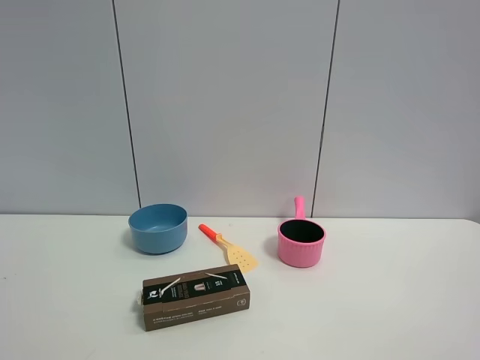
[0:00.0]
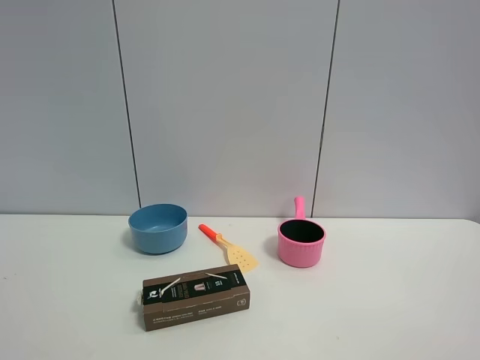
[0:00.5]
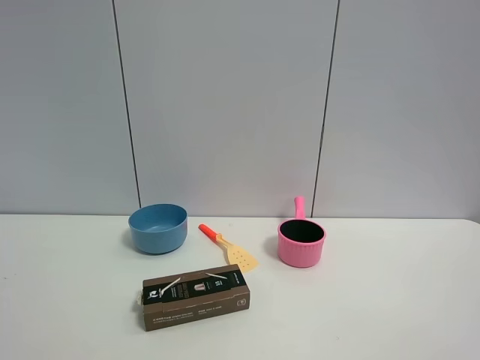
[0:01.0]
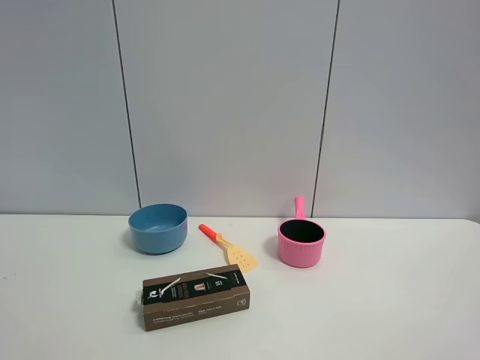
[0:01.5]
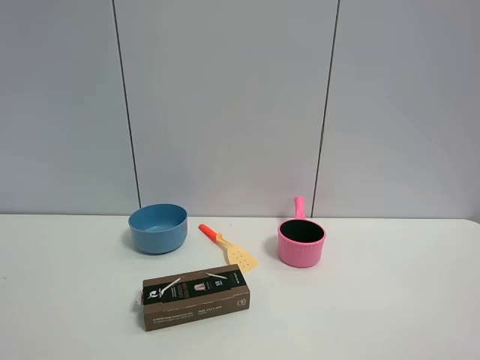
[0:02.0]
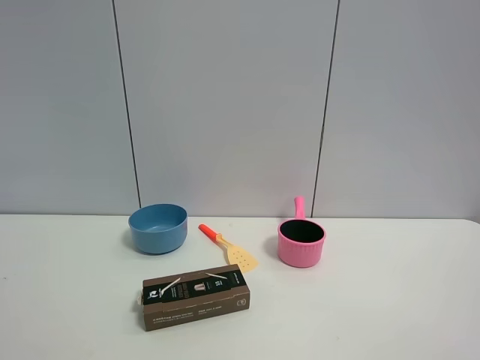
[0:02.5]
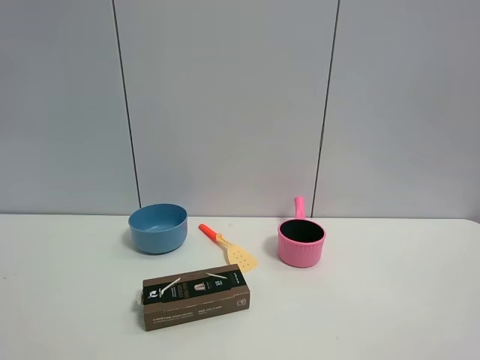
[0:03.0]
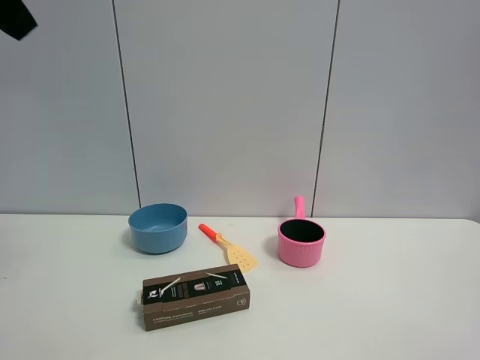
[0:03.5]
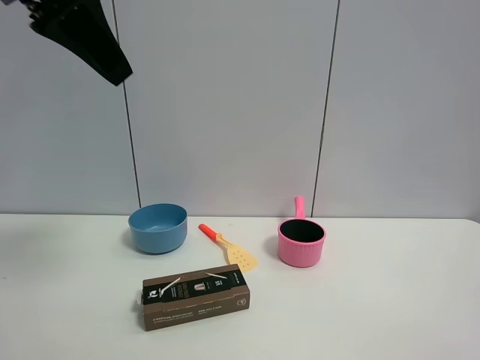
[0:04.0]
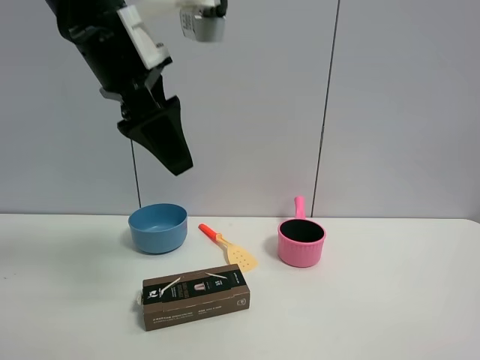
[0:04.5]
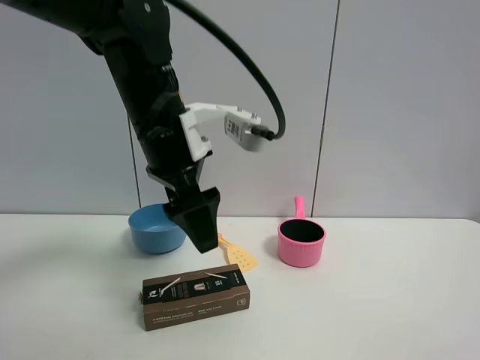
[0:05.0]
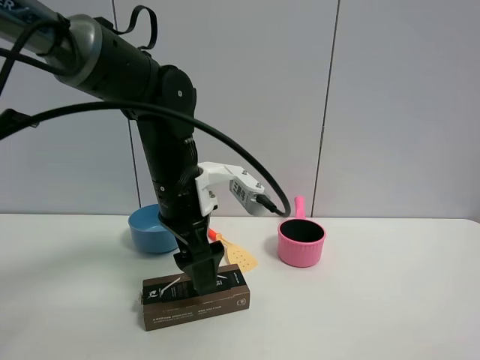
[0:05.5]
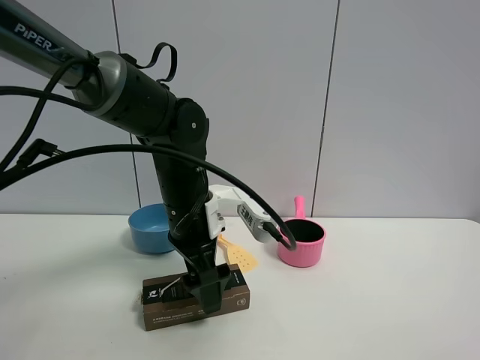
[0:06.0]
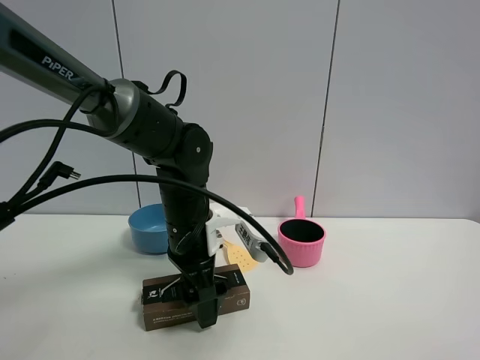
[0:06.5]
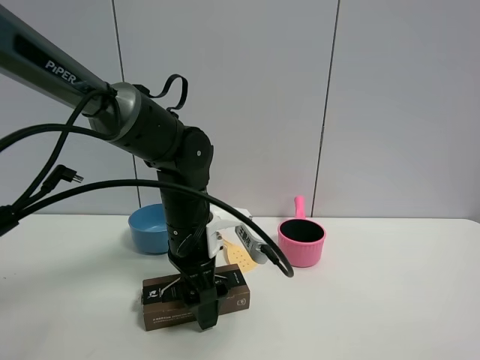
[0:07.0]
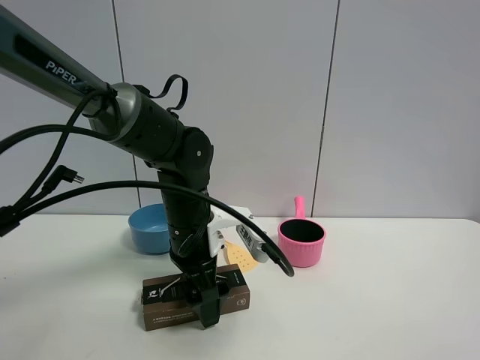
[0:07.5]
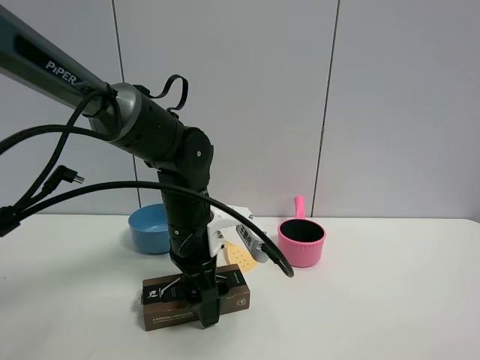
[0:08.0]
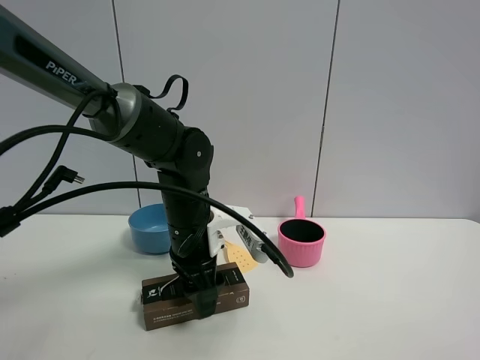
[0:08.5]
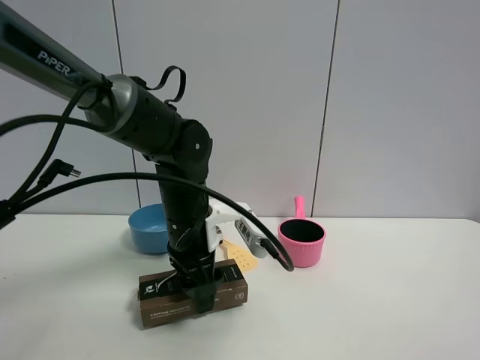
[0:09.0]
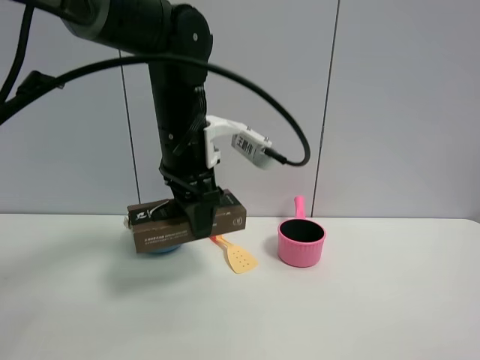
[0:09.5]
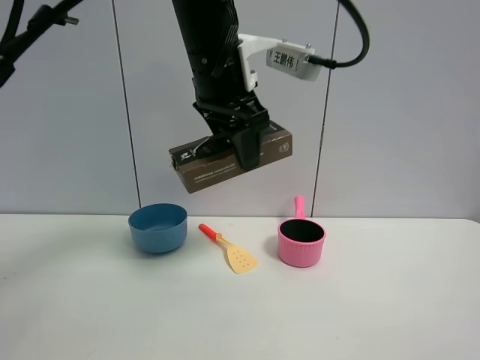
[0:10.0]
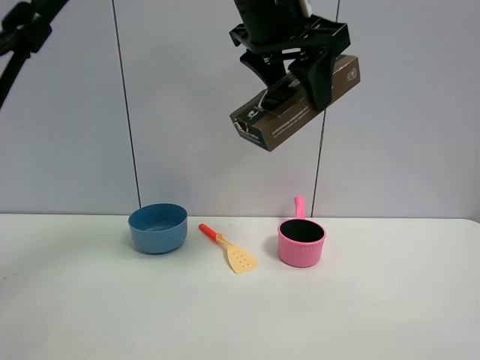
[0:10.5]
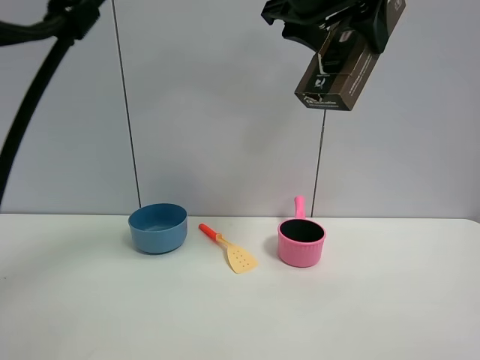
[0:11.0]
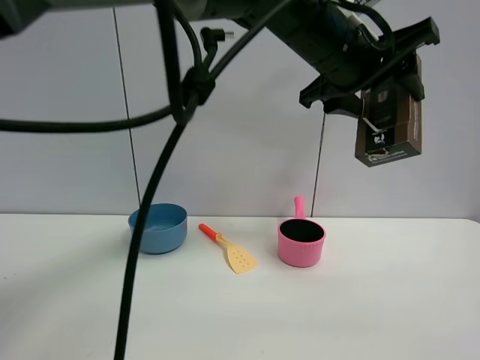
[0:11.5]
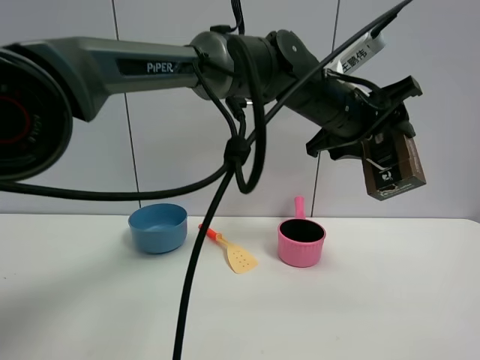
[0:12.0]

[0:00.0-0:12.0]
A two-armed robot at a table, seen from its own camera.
Task of the whole recording: the gripper move the object.
Step, 0:00.0 to 0:08.0: Grasp the brown box with the left gripper.
0:02.0 to 0:04.0: The left gripper moves forward and to the right, some 30 cm, and opens up.
0:04.0 to 0:06.0: The left gripper goes approximately 30 cm downward and to the right.
0:06.0 to 0:08.0: The grippers stay close to where they were, moving slightly.
0:08.0 to 0:10.0: The left gripper heads upward, covering approximately 20 cm, and closes its fingers.
0:10.0 to 0:12.0: The left gripper travels to the right and downward by about 15 cm.

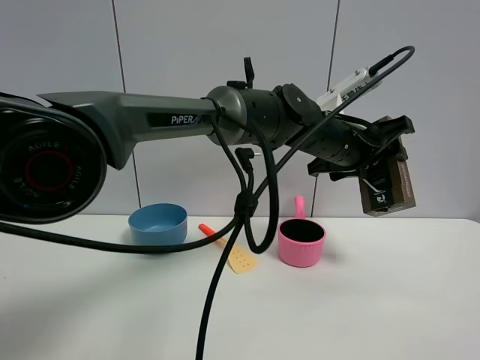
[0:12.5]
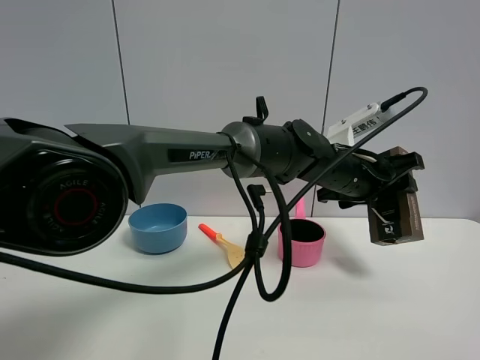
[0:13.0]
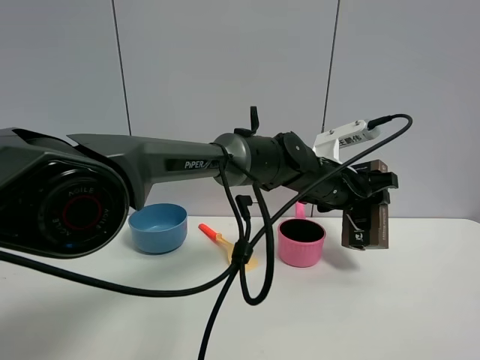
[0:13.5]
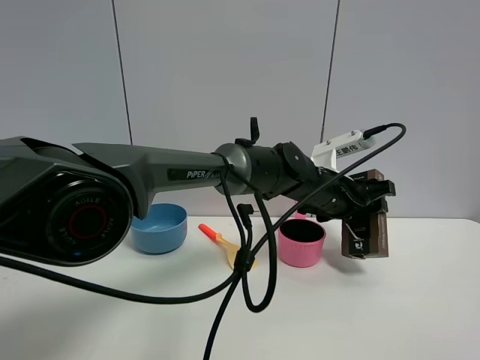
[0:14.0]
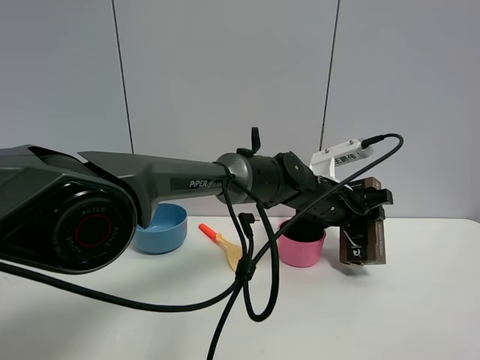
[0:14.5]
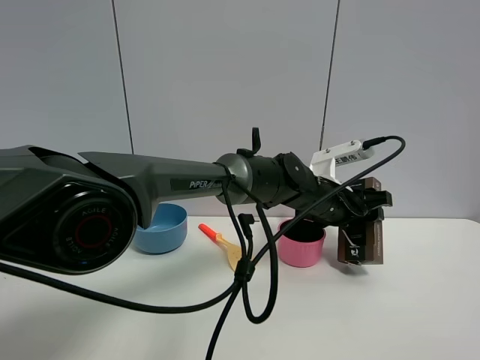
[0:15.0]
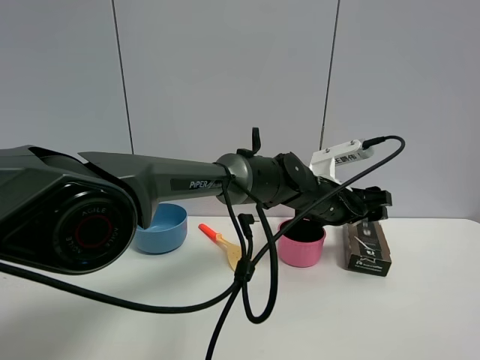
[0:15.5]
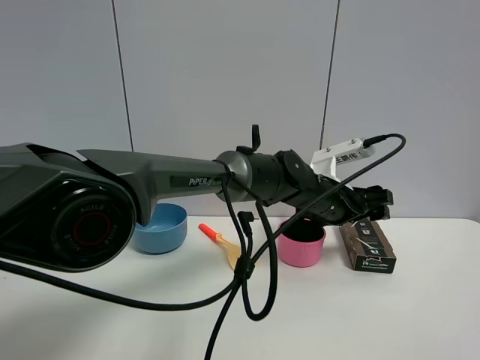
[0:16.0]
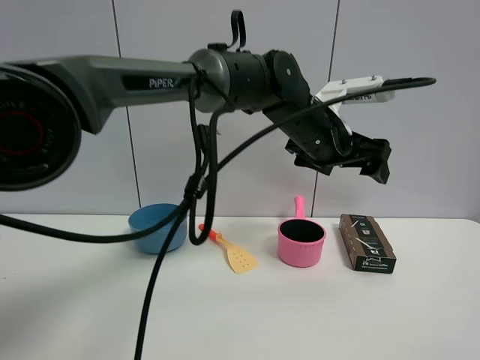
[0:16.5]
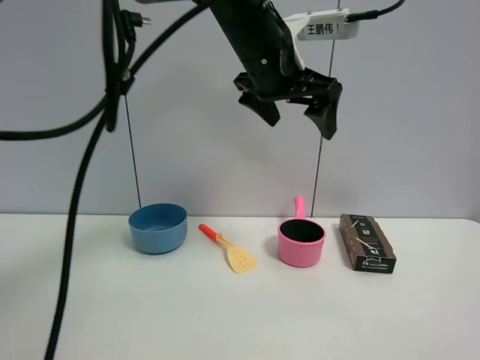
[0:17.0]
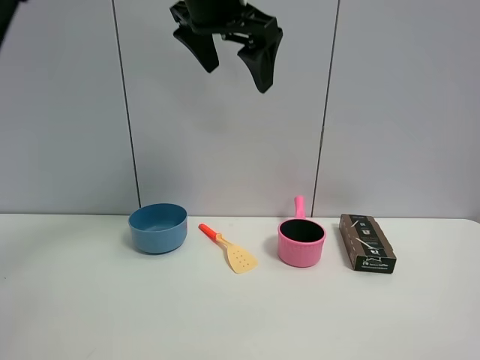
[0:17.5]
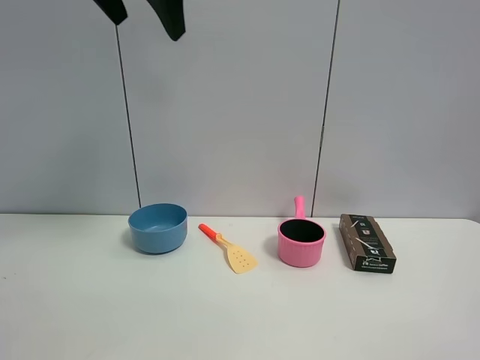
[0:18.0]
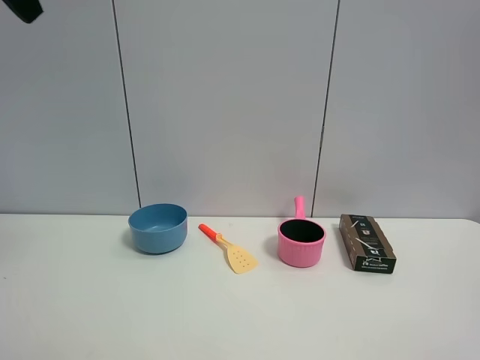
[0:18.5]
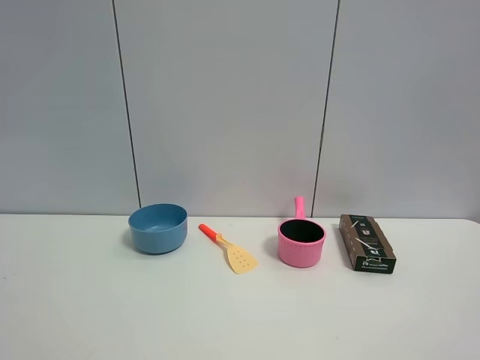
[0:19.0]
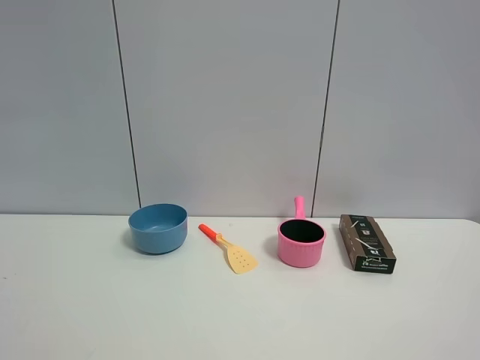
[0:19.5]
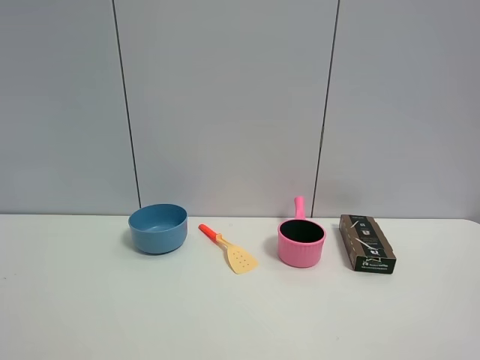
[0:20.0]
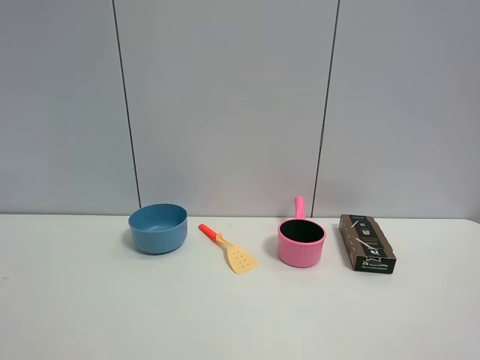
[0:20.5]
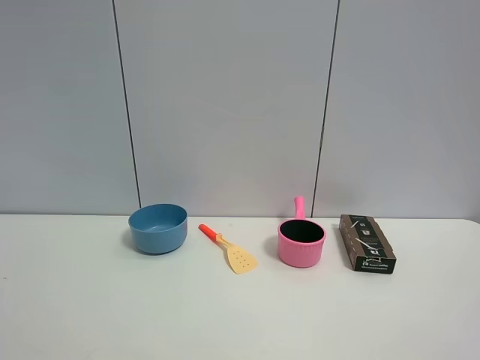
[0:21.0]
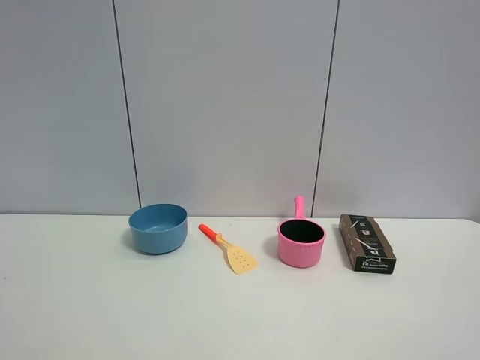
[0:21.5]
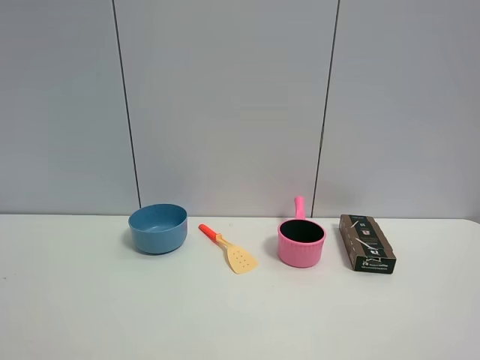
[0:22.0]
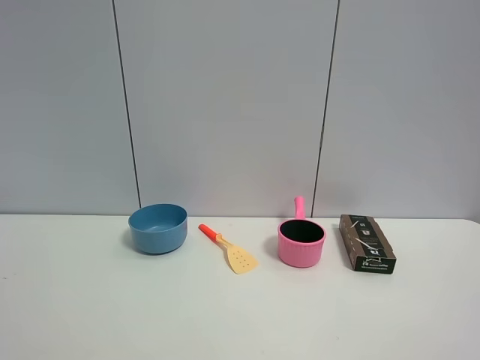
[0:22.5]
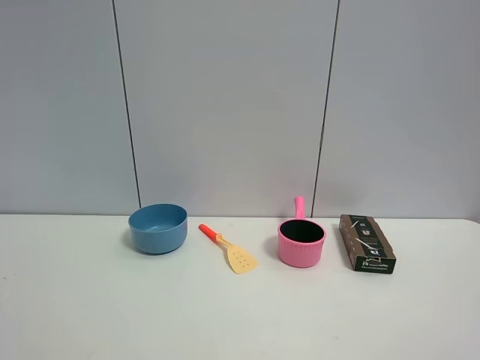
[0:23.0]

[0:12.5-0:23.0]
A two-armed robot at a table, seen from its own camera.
Task of the whole recording: the gripper move the object.
Step, 0:12.5 to 0:15.5: Place the brown box on the table with the left gripper.
0:12.5 to 0:14.5: The left gripper shifts roughly 10 cm downward.
0:14.5 to 0:16.5: The left gripper travels upward by roughly 10 cm, and opens.
0:16.5 to 0:19.0: The left gripper goes about 50 cm to the left, backward and upward.
0:21.0 to 0:23.0: The two grippers keep their place.

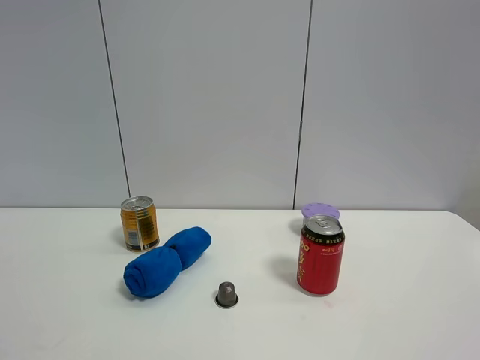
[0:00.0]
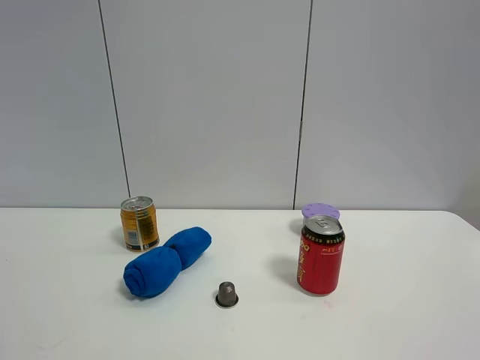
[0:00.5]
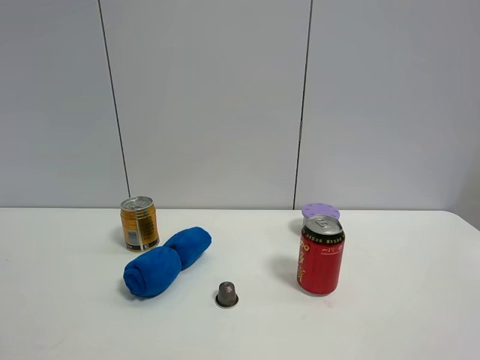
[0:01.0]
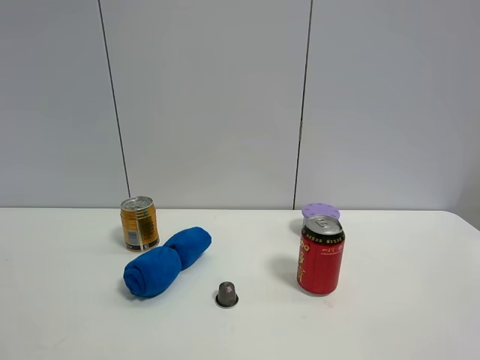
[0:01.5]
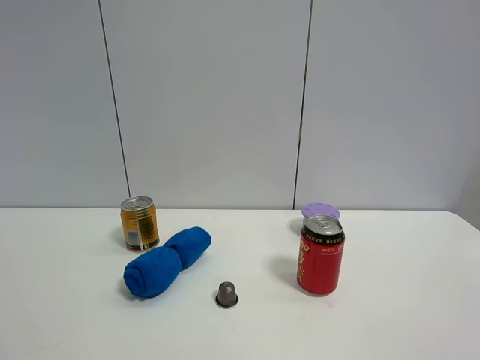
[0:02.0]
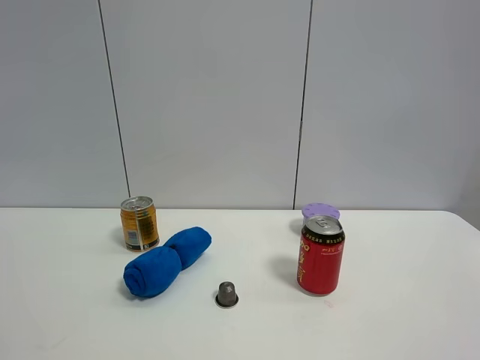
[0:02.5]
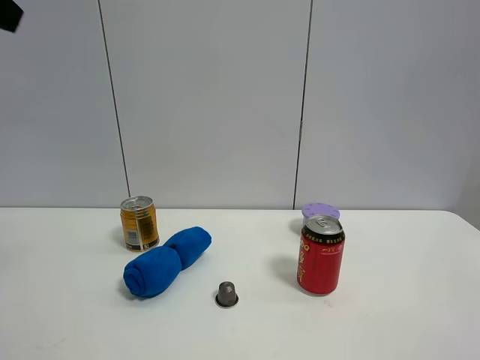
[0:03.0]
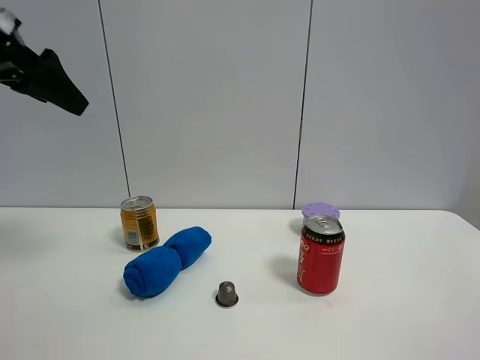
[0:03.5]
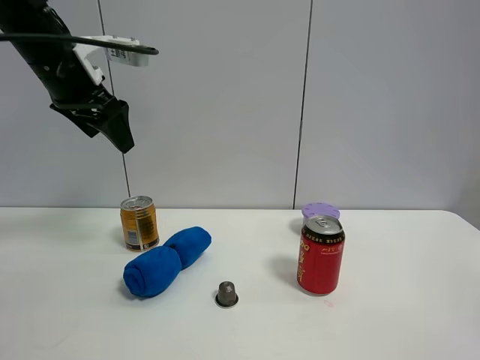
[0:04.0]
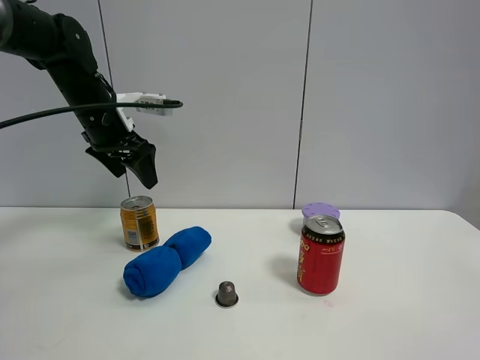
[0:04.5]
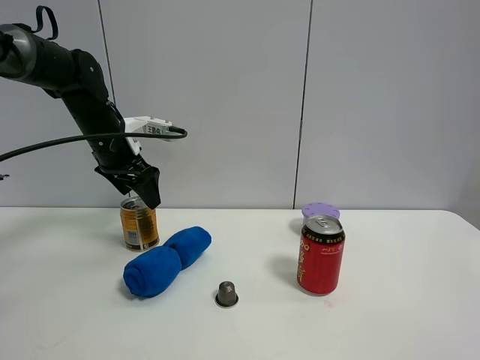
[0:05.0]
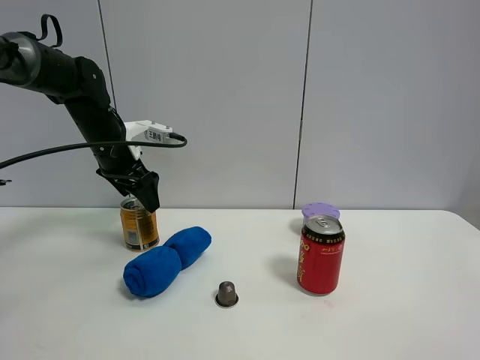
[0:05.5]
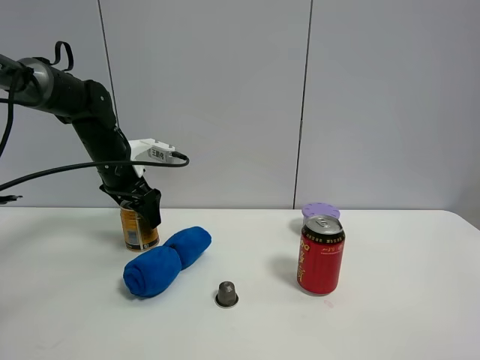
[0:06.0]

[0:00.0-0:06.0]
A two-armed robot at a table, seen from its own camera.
Task of the whole recording: the gripper move the object.
0:00.0 to 0:02.0: Both grippers stay put.
0:02.0 to 0:04.0: The left gripper moves forward, roughly 40 cm.
0:04.0 to 0:06.0: The left gripper heads downward and forward, covering approximately 15 cm.
